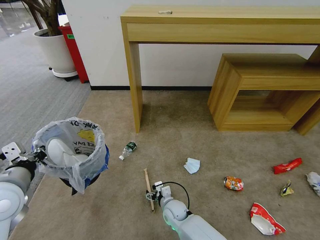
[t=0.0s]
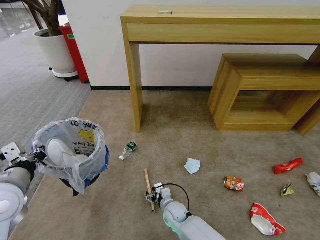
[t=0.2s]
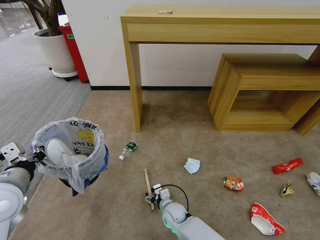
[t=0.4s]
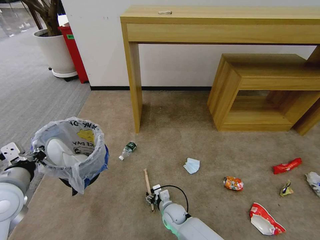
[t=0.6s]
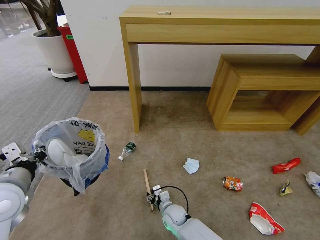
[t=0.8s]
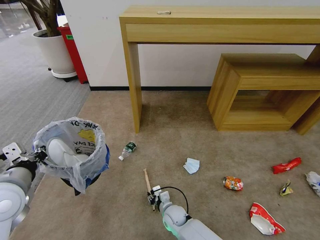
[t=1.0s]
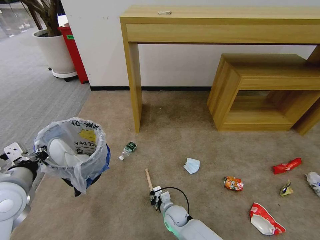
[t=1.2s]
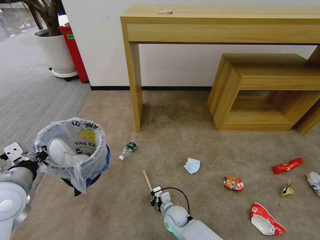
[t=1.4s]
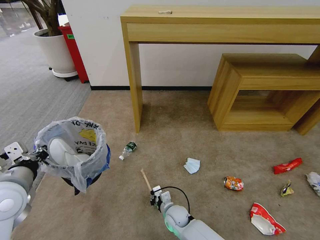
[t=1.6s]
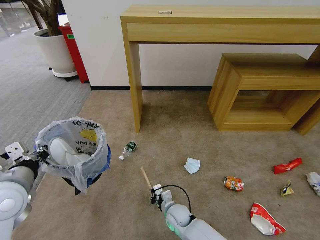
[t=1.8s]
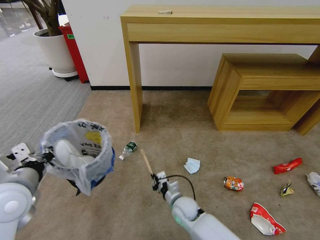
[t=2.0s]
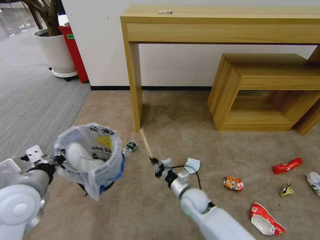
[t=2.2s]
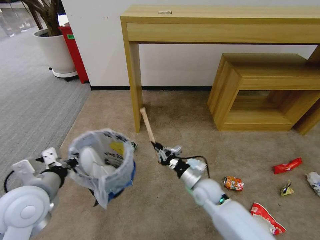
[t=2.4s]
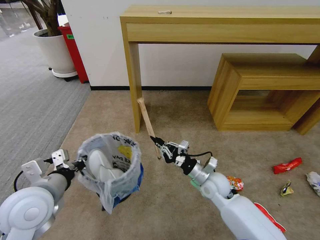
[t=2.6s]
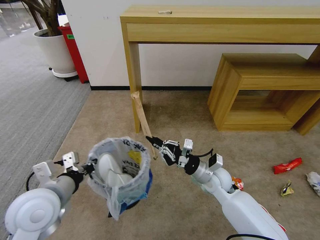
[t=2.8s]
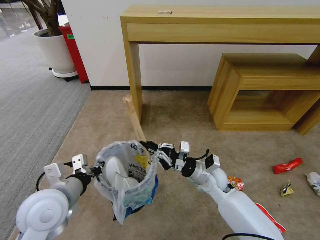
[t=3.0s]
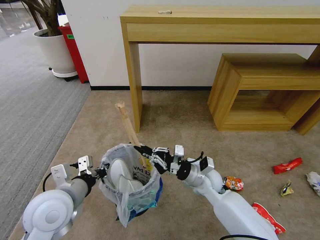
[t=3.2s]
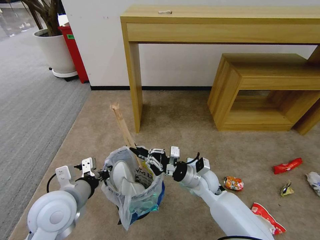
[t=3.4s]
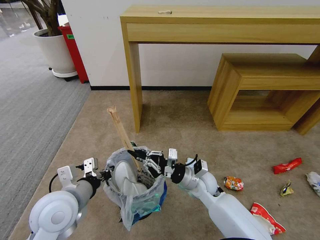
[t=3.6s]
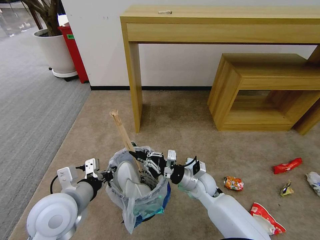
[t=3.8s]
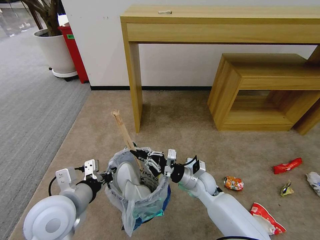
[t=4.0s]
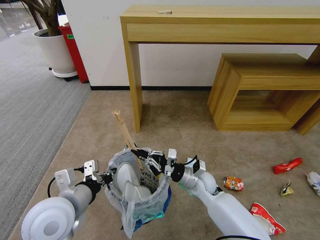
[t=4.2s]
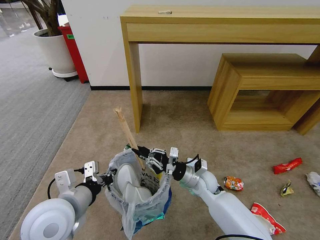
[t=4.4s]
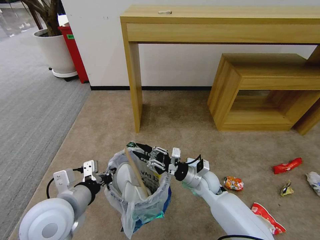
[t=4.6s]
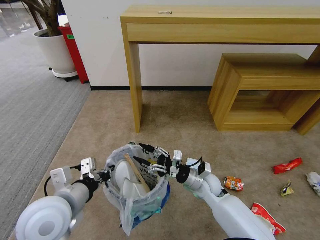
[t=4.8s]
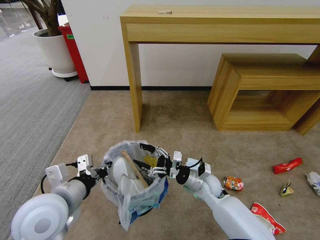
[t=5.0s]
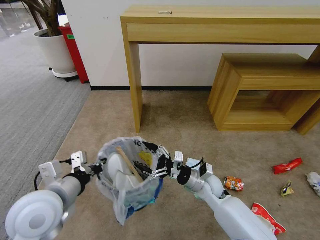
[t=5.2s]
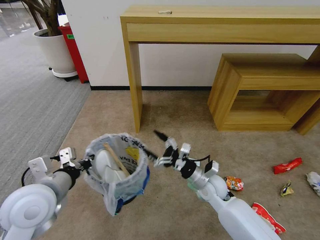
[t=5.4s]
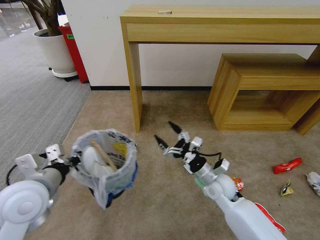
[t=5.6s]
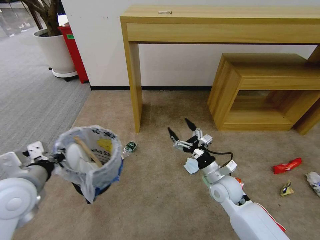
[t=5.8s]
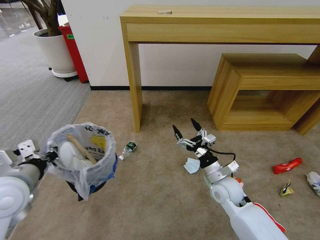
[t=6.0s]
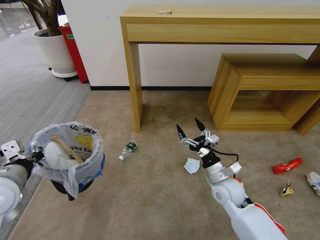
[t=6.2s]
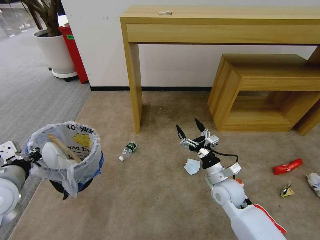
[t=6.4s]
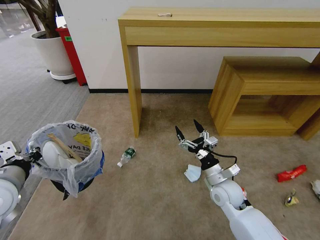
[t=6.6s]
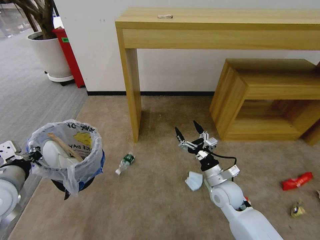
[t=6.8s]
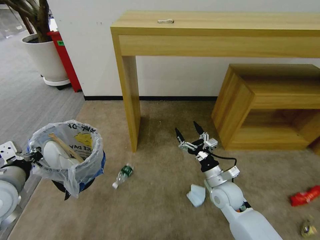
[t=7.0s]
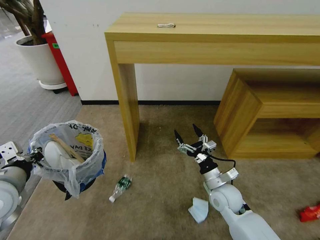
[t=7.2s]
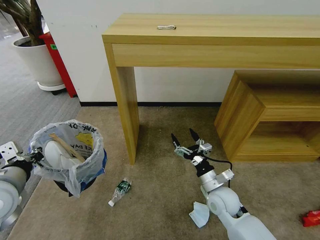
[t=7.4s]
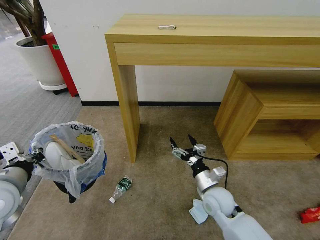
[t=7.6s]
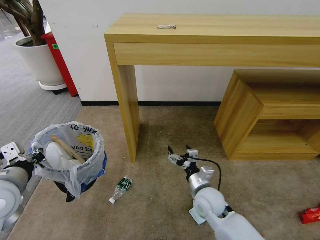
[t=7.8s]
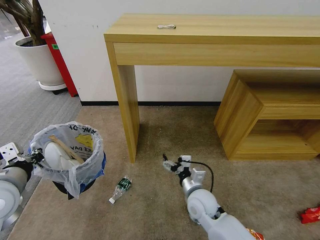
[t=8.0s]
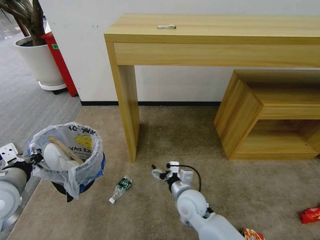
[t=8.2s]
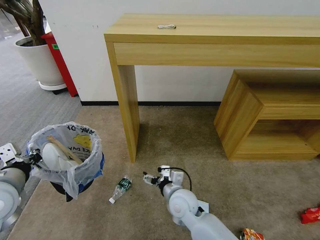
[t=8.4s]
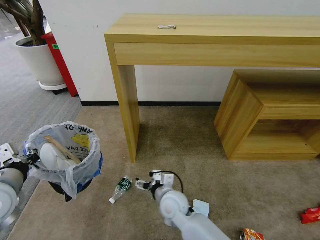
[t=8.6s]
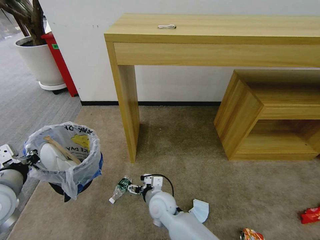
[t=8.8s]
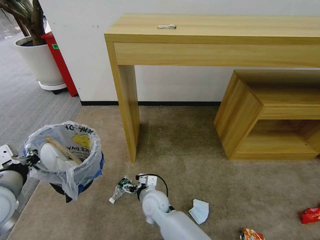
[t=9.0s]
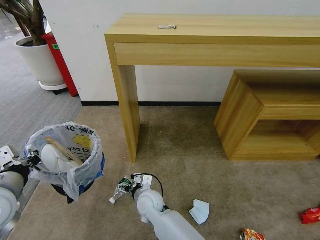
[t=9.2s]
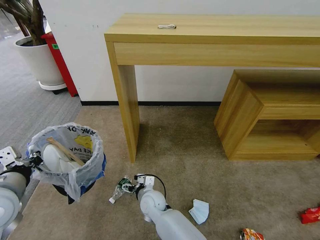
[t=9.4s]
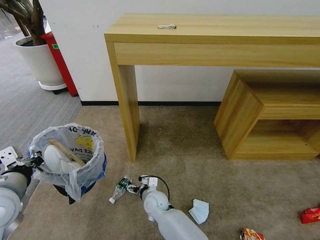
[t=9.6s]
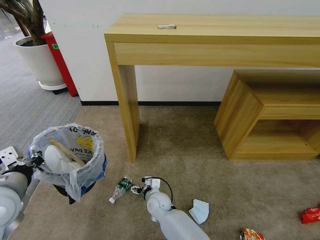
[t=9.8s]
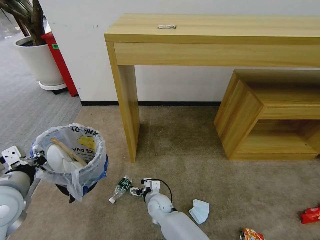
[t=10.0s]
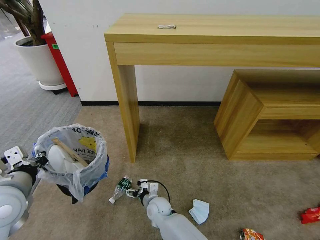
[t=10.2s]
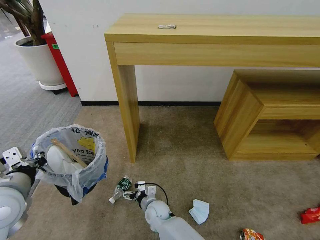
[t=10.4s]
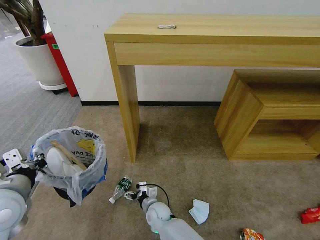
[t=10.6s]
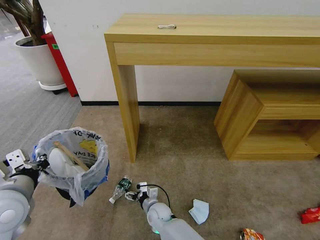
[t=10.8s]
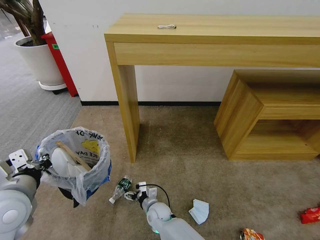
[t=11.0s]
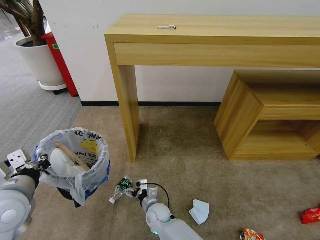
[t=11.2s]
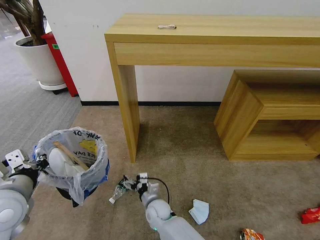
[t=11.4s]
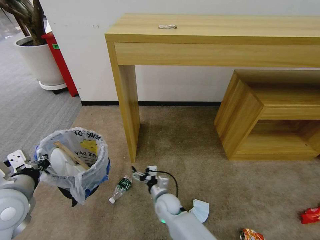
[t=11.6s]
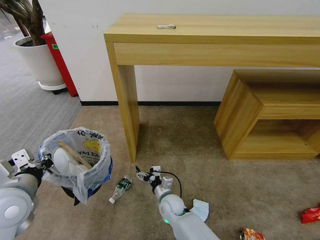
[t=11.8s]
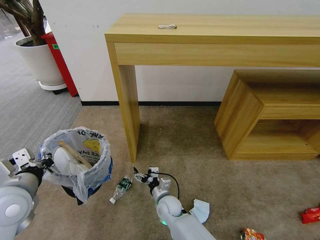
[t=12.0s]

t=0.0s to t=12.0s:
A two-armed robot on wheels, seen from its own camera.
Task of the whole recording: Pick up the trash bin and place the garbage on the floor into it.
t=0.0s to t=1.6s: The right gripper closes its fingers.
t=1.6s to t=3.0s: The left gripper shifts about 10 cm to the right. The right gripper goes some 25 cm upward and to the right.
t=3.0s to t=4.4s: There are only small adjustments of the grippers.
t=4.4s to t=6.0s: The right gripper moves to the right, approximately 5 cm, and opens its fingers; the left gripper moves to the left, approximately 10 cm.
t=7.6s to t=9.0s: The right gripper moves to the left, some 20 cm.
t=9.0s to t=10.4s: The right gripper is displaced downward by some 10 cm.
t=10.4s to t=12.0s: The right gripper shifts by roughly 5 cm.

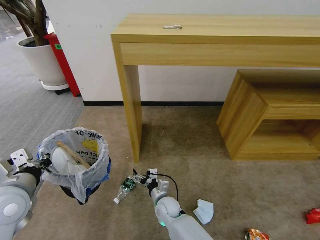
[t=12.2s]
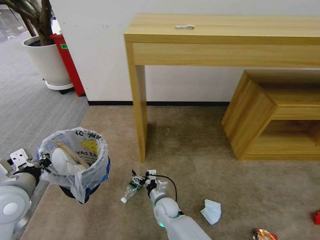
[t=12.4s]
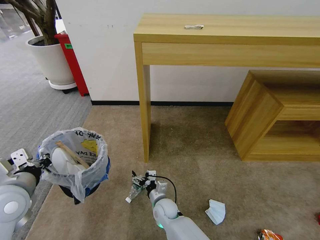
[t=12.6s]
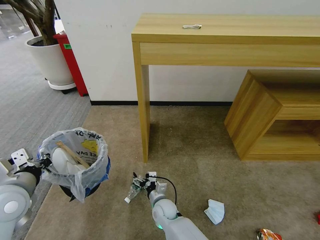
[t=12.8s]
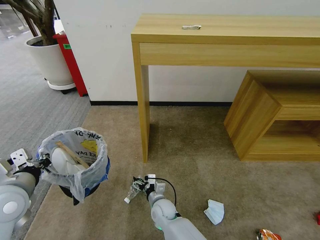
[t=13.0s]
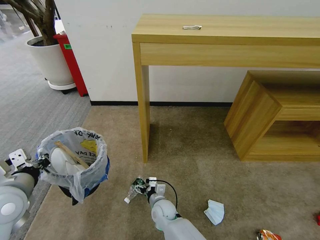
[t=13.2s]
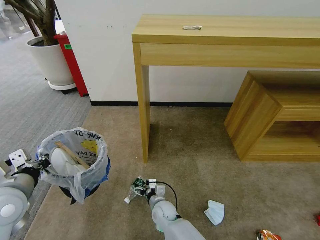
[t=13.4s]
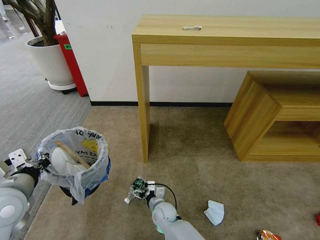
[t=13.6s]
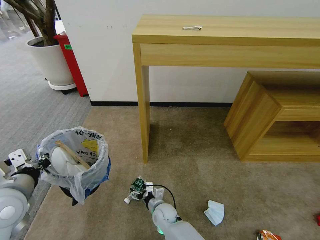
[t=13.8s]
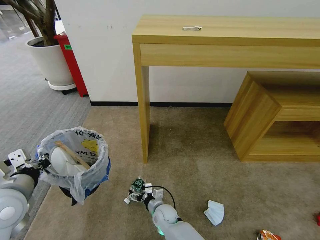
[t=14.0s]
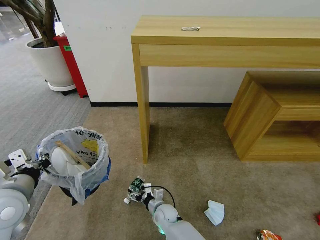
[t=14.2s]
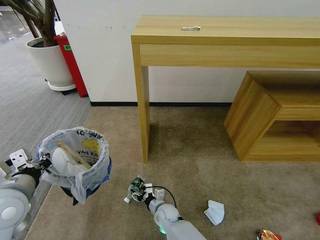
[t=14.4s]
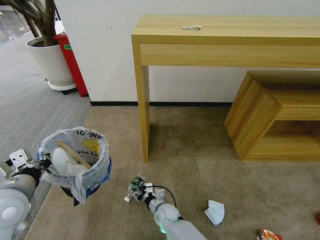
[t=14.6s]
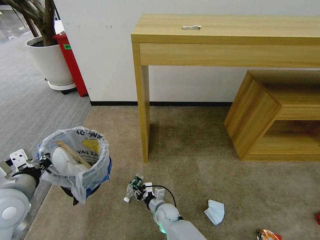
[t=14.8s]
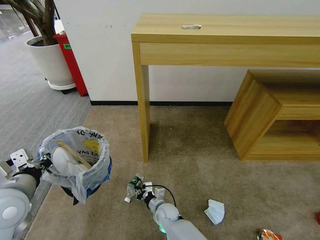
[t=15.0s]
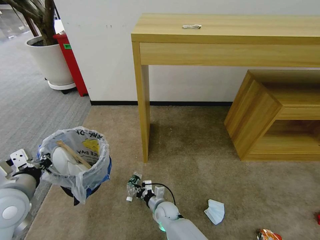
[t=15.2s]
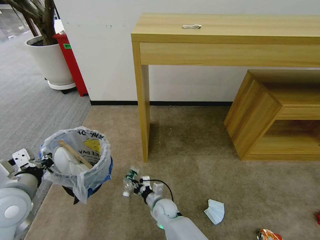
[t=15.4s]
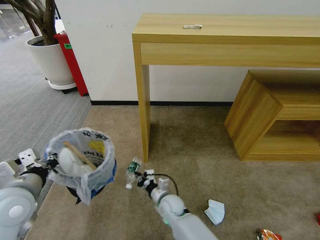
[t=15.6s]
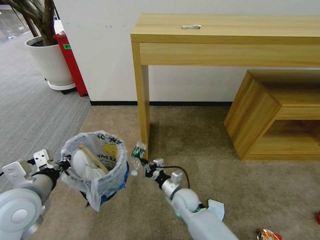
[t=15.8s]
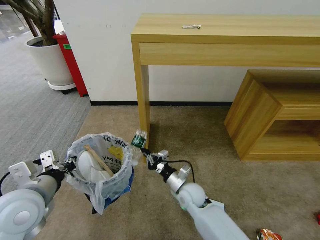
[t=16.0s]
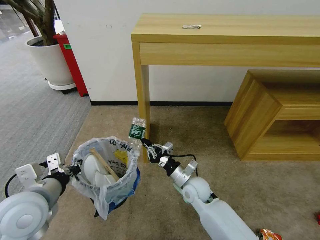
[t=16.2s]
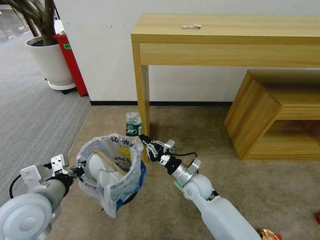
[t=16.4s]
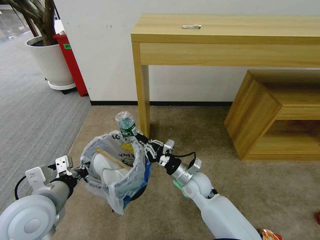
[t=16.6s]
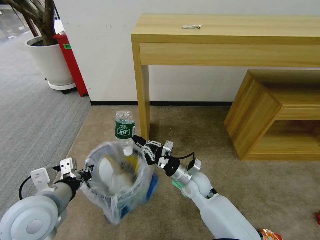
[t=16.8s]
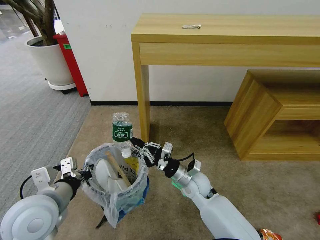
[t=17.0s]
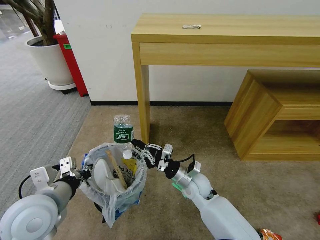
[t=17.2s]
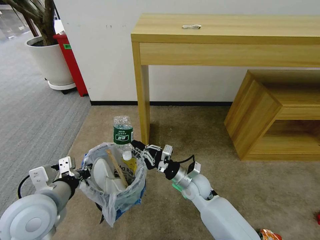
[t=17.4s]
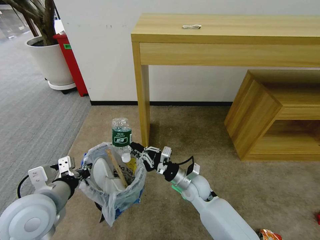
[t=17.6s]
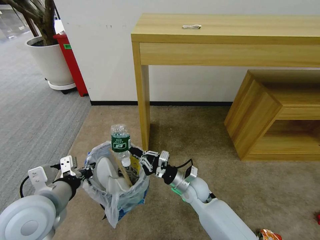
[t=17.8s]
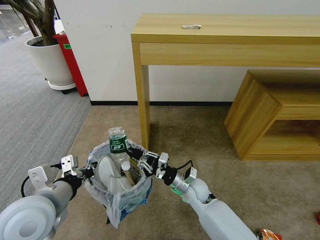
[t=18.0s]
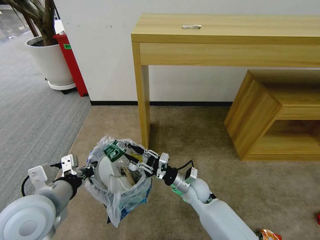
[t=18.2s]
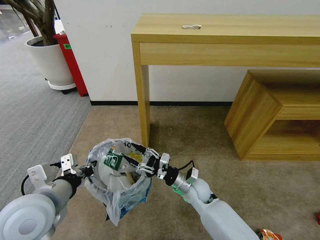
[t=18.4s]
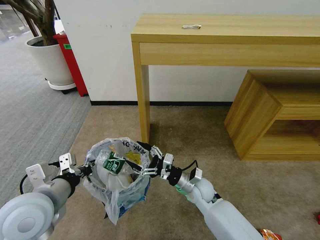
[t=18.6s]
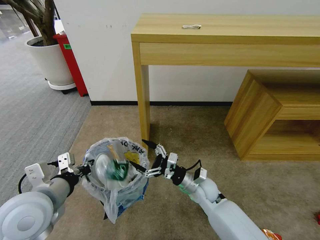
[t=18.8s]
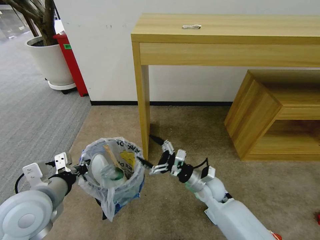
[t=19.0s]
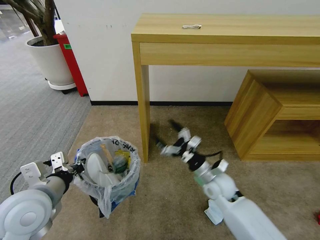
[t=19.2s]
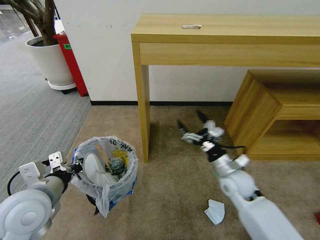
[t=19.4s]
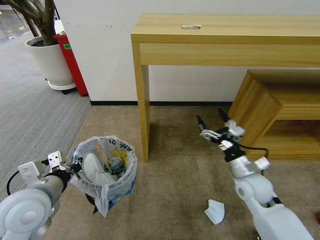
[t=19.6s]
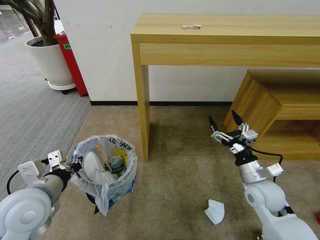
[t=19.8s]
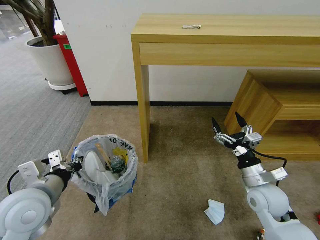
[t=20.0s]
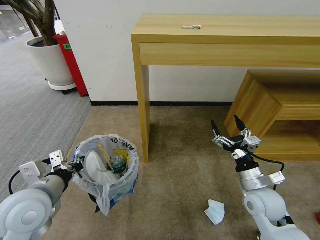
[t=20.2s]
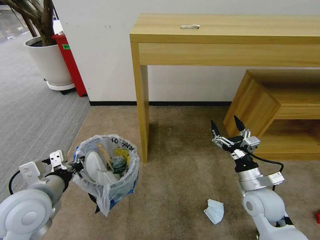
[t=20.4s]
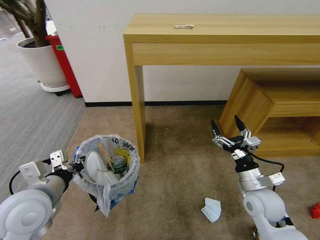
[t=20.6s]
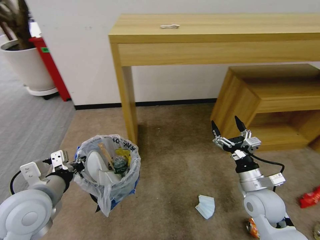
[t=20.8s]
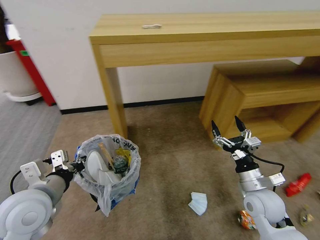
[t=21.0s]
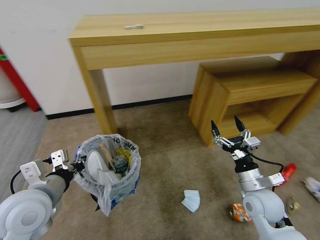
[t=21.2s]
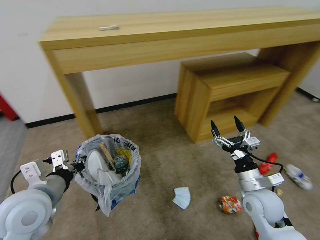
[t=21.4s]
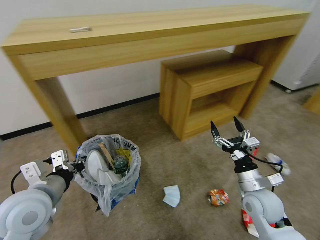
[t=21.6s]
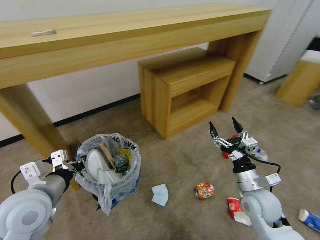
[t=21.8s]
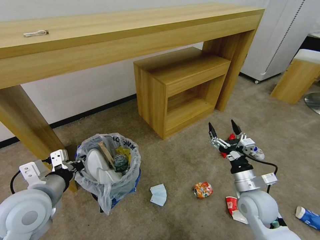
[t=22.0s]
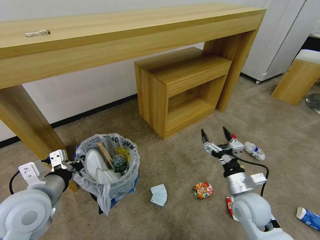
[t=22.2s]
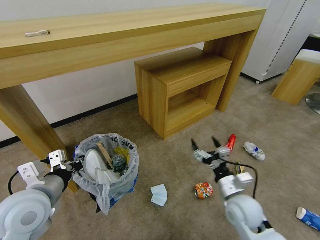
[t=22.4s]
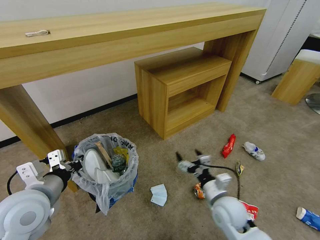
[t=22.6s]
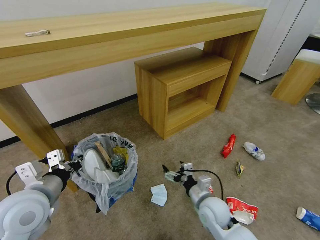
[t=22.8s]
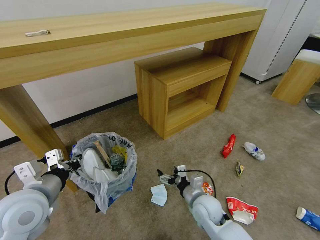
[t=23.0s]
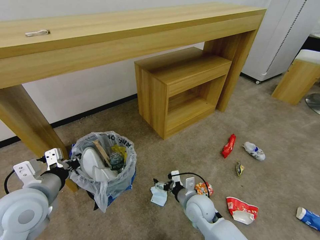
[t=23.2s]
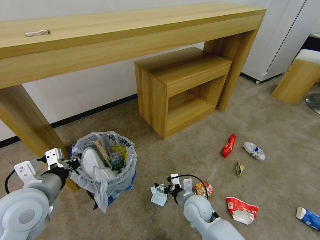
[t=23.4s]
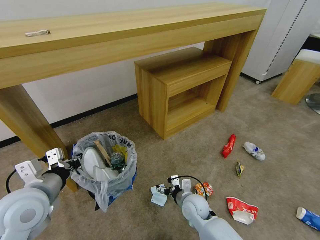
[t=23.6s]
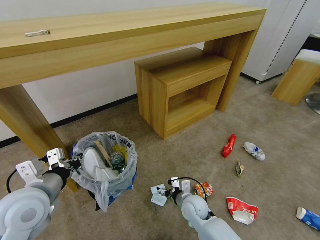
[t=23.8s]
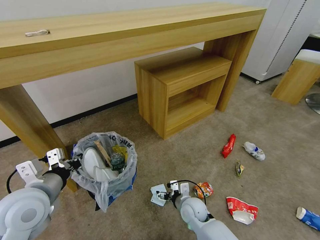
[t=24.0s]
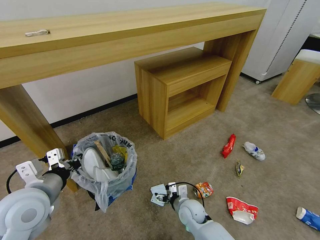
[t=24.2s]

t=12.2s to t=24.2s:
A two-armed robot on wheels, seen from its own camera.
Task of the whole recording: Pick up the trash bin and place the garbage on the floor into it.
t=12.2s to t=13.8s: The grippers move only a little.
t=13.8s to t=15.2s: The right gripper closes up.
t=15.2s to t=16.6s: The left gripper heads to the right, covering some 5 cm. The right gripper is displaced upward and to the right by approximately 20 cm.
t=16.6s to t=18.2s: The right gripper opens up.
t=18.2s to t=19.8s: The right gripper shifts roughly 20 cm to the right and upward, and opens its fingers.
t=21.2s to t=22.6s: The right gripper travels to the left and downward by about 10 cm.
t=22.6s to t=24.2s: The right gripper moves downward and to the left, approximately 15 cm.
